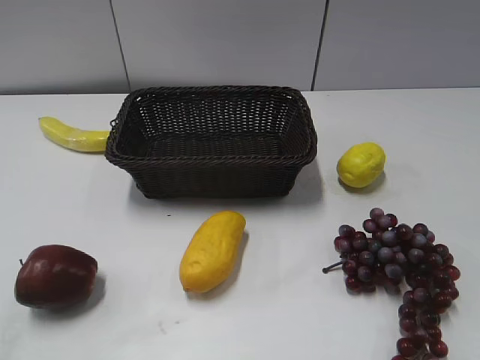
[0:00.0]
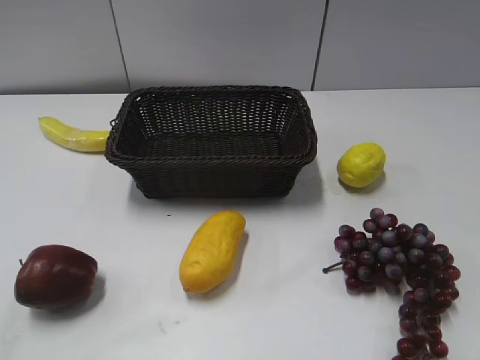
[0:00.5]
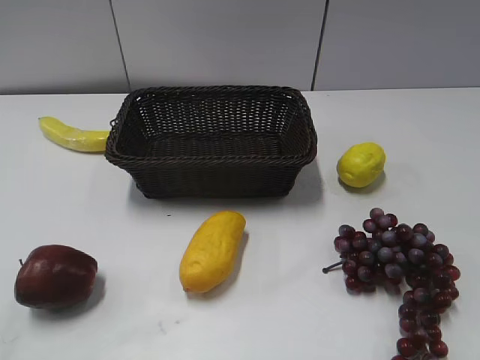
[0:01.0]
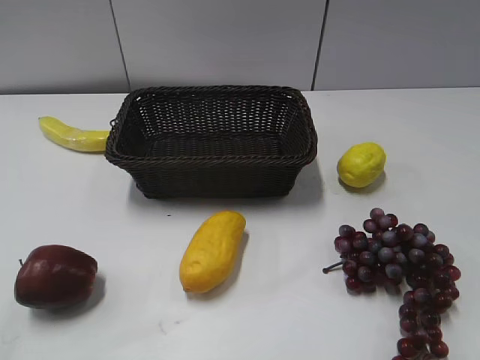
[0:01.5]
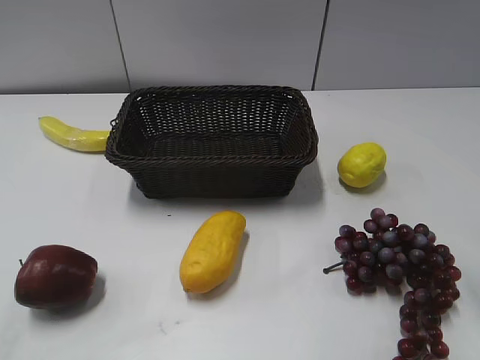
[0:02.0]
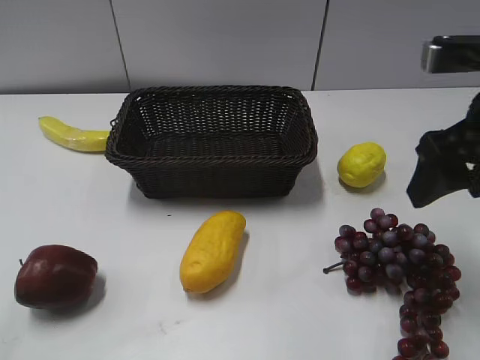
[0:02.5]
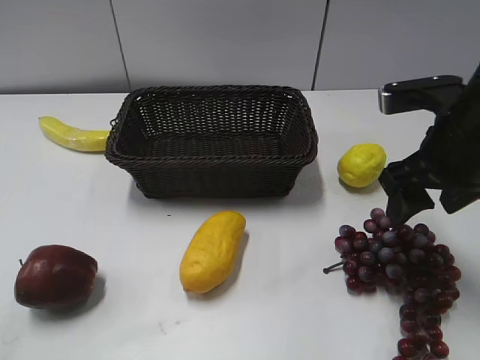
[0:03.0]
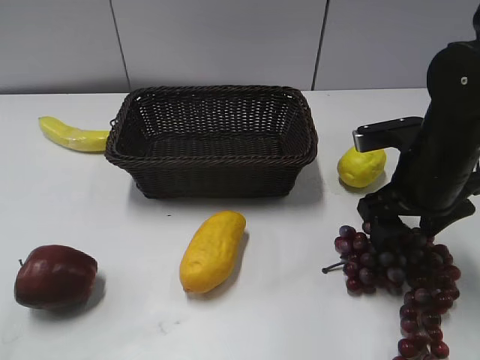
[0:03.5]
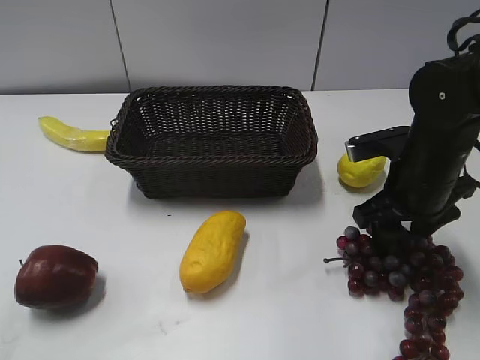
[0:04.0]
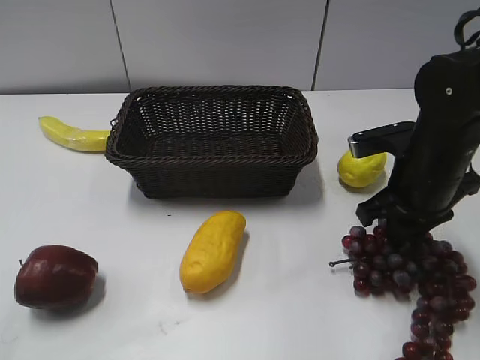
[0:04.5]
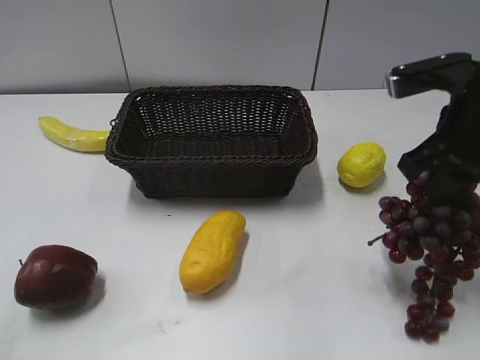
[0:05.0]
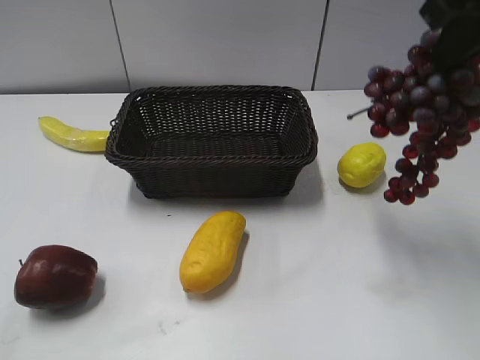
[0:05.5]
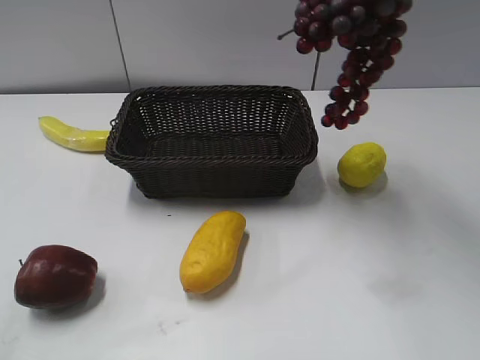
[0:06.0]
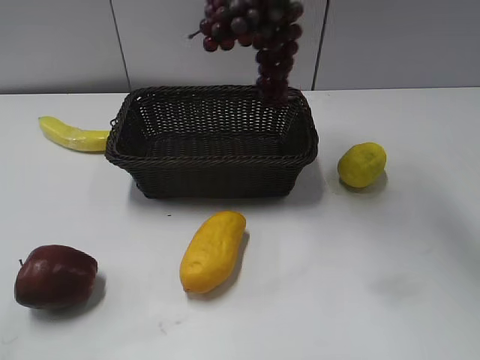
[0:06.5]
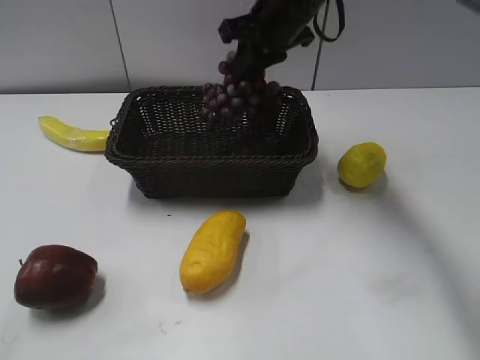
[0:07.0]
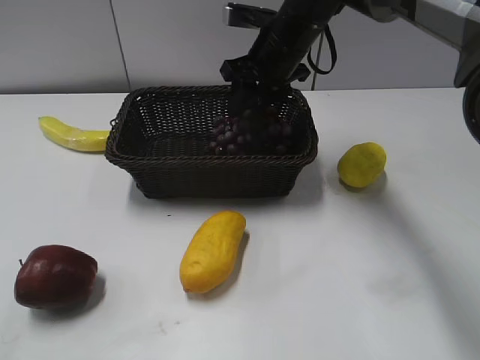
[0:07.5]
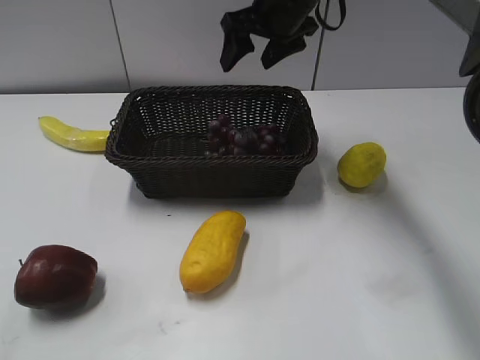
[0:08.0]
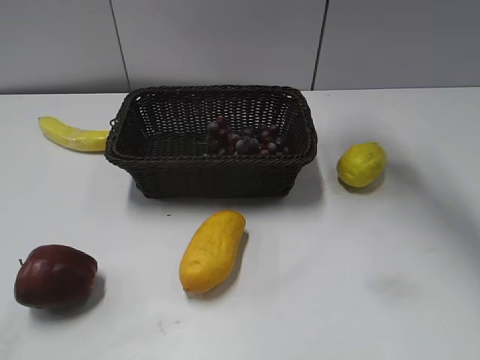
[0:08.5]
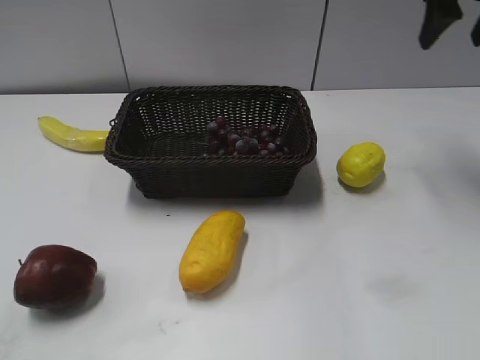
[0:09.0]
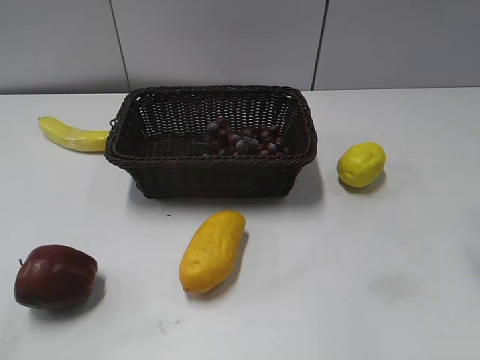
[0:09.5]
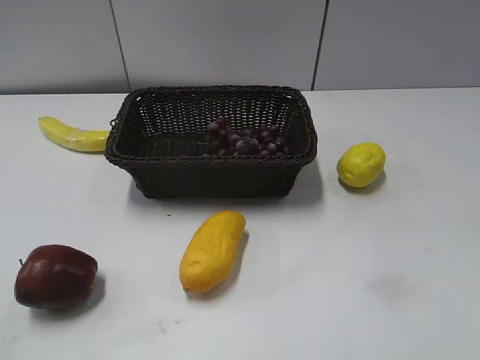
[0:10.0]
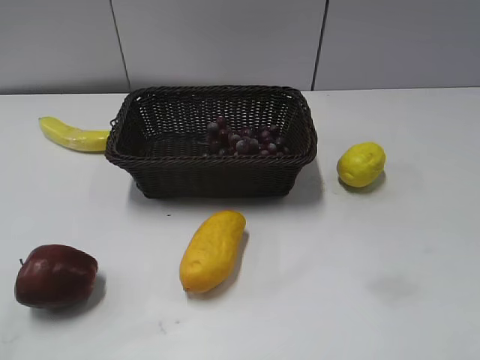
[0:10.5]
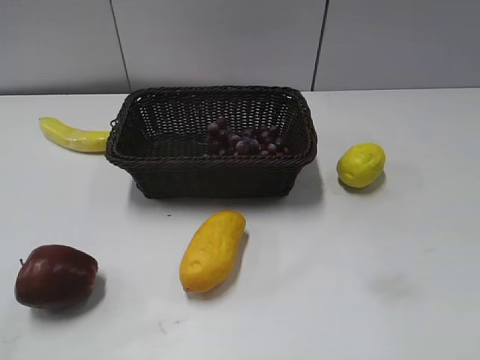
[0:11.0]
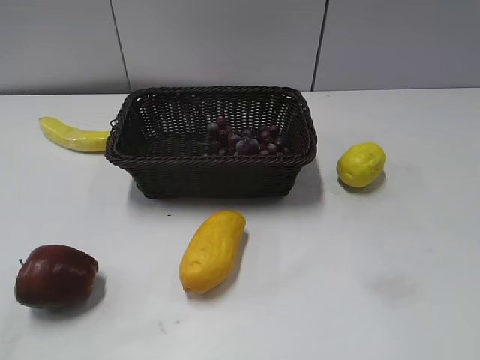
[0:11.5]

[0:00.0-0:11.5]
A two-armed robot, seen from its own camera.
Step, 0:02.5 to 0:04.5: Grasp the grape with right gripper.
Step, 0:05.0 to 0:07.5: Place the grape in the basket with right gripper.
0:02.0 to 0:04.0: The right gripper heads downward, to the left and forward, covering about 20 cm.
0:04.0 to 0:06.0: The right gripper goes some 25 cm upward, and closes up.
0:06.0 to 0:07.5: The right gripper travels downward, forward and to the left by some 25 cm, and opens up.
0:07.5 to 0:09.5: The right gripper shifts approximately 30 cm to the right and backward.

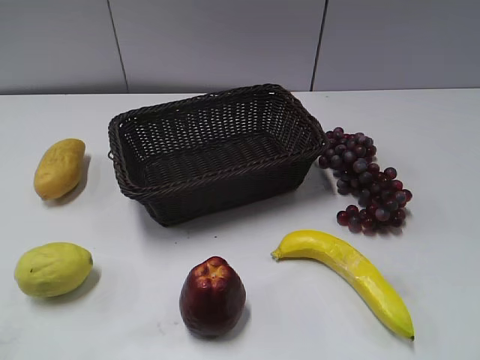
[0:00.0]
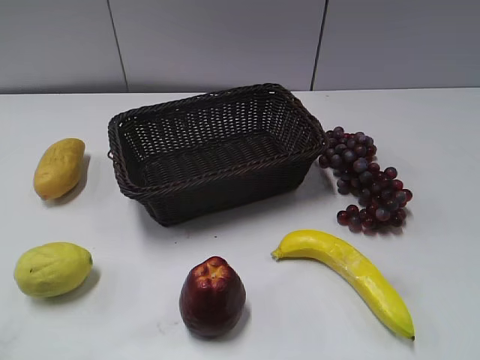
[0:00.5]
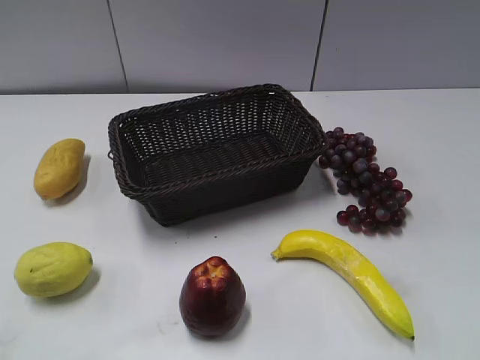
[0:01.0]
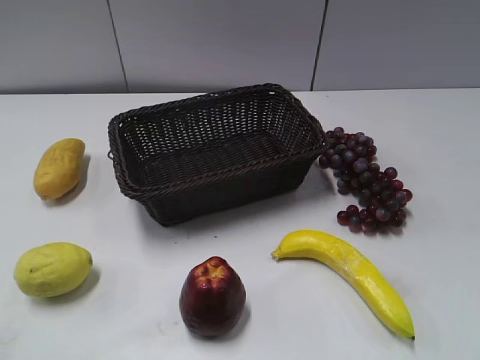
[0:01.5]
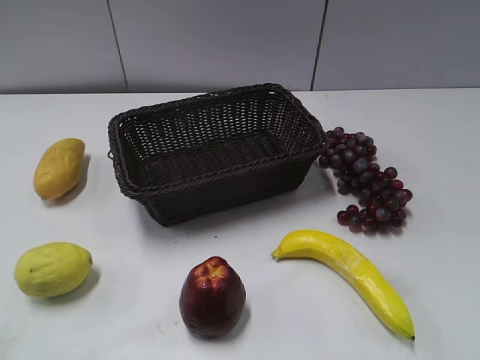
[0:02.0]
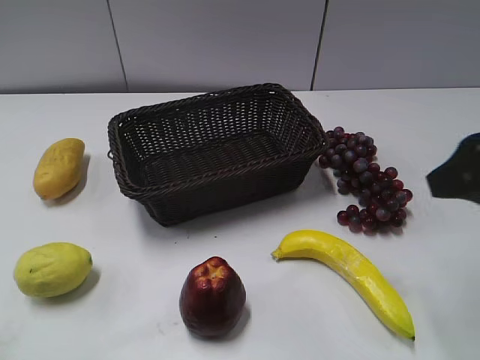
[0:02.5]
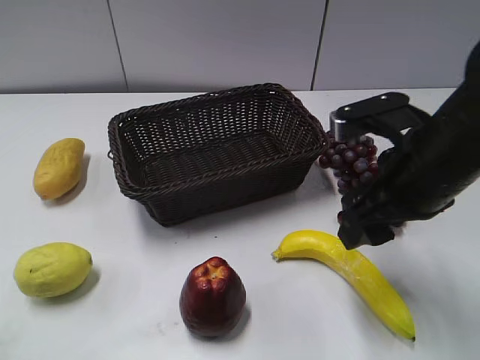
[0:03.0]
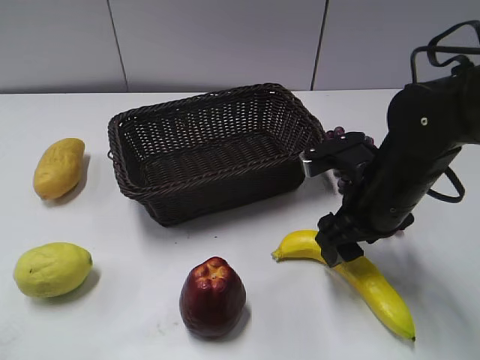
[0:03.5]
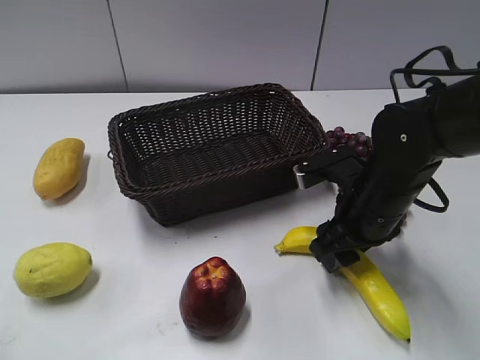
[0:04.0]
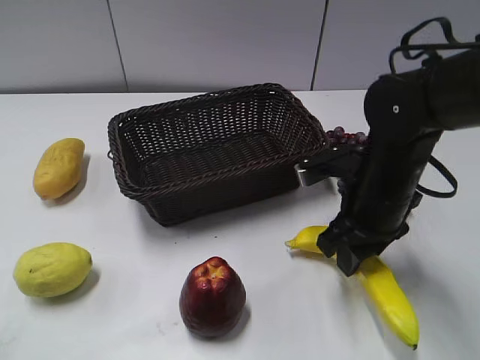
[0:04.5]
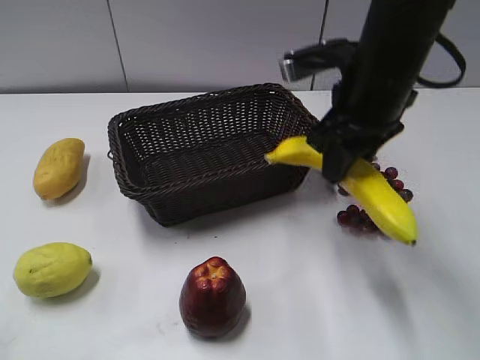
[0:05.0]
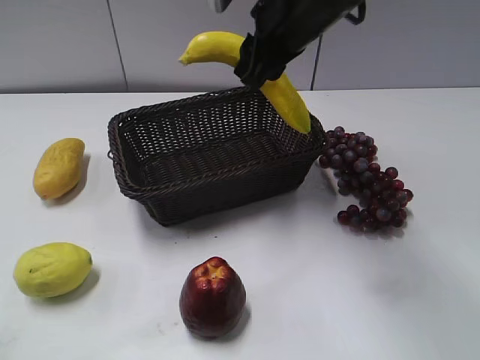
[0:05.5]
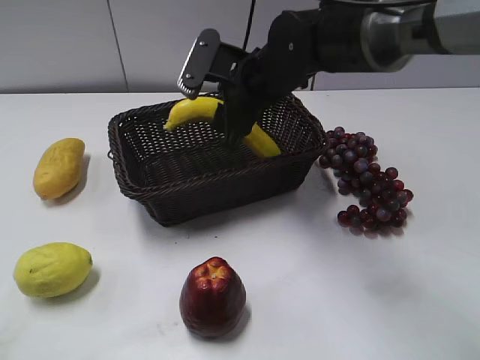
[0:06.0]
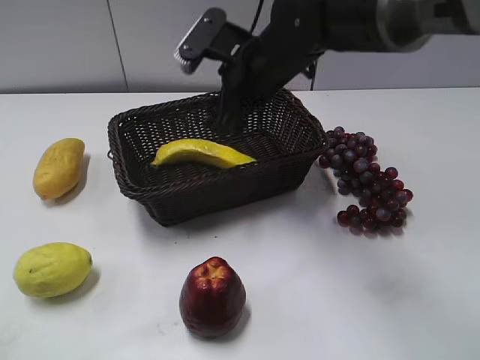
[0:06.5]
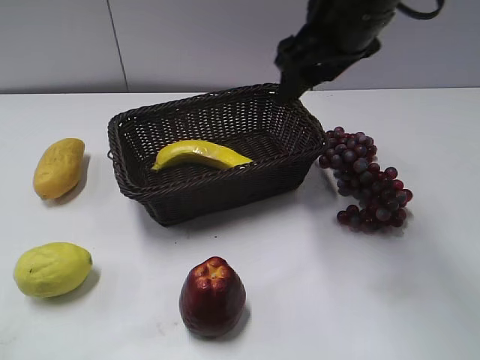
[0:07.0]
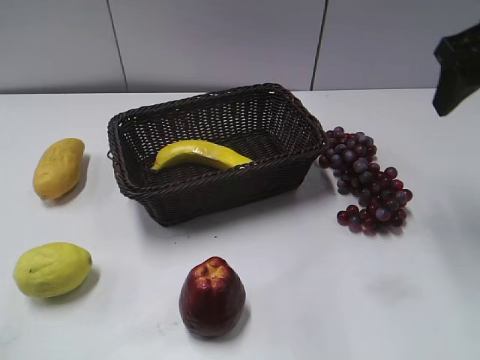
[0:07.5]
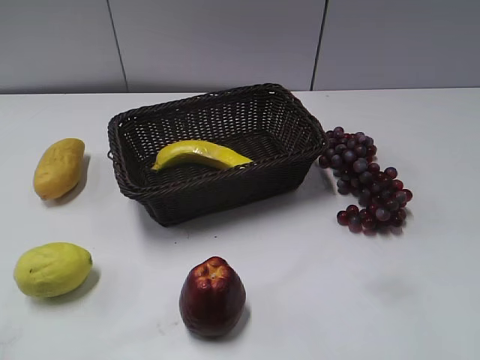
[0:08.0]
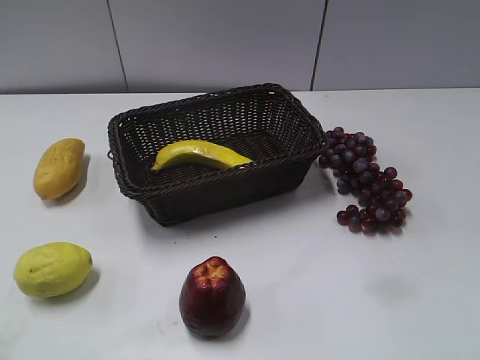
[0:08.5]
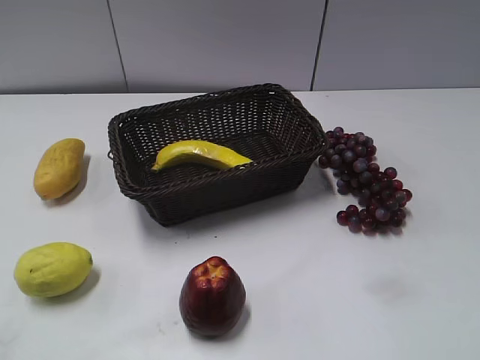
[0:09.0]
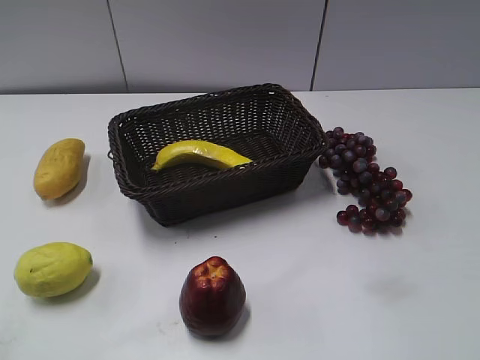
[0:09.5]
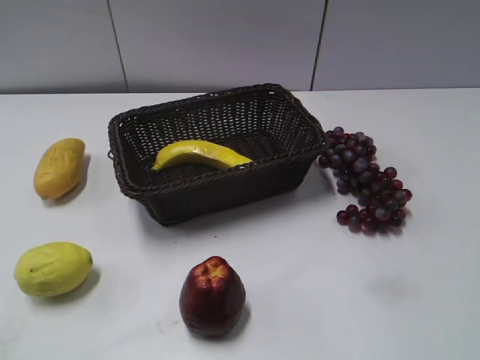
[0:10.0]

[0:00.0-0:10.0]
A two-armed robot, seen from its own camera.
Step, 0:02.5 to 0:04.0: Grasp the banana with right gripper.
Step, 0:05.0 to 0:06.5: Place the banana in the basket with right gripper.
0:02.0 to 0:04.0: The right gripper moves downward, forward and to the left, approximately 30 cm, and closes.
0:04.0 to 0:06.0: The right gripper shifts some 20 cm to the left, forward and upward.
0:06.0 to 0:08.0: The right gripper moves to the right, backward and upward, approximately 35 cm, and opens.

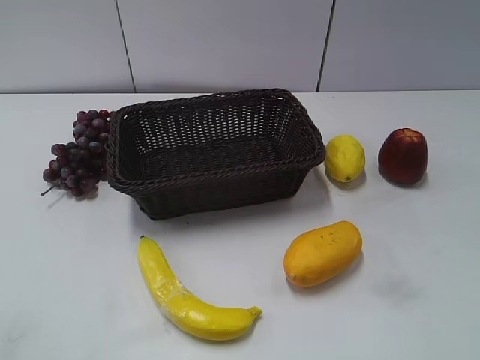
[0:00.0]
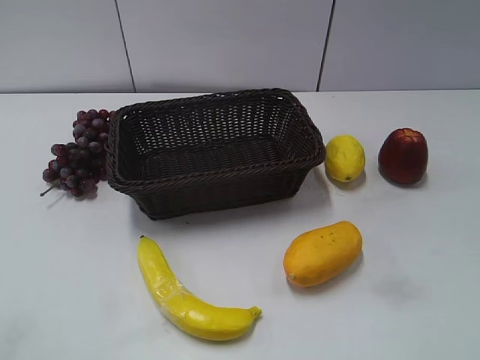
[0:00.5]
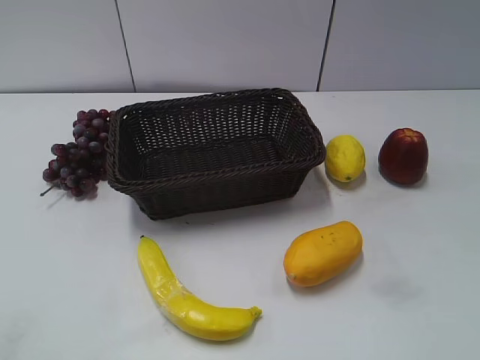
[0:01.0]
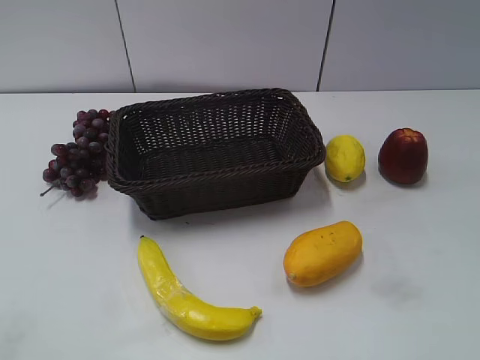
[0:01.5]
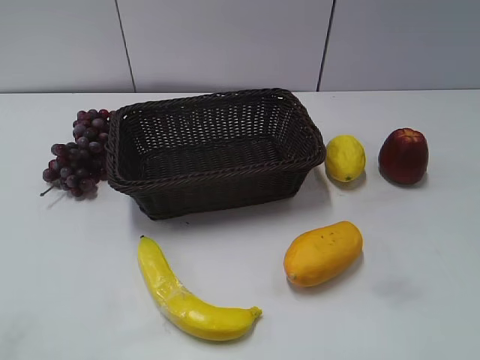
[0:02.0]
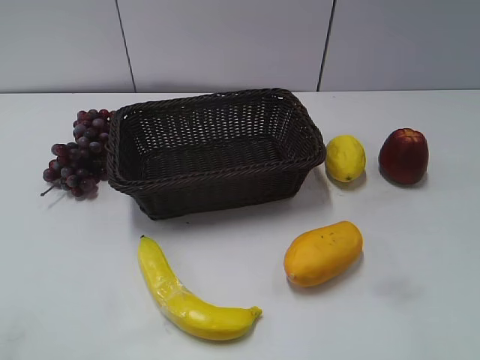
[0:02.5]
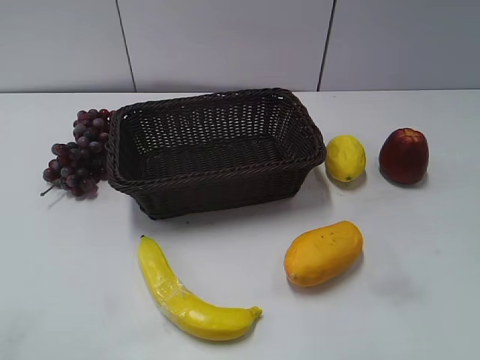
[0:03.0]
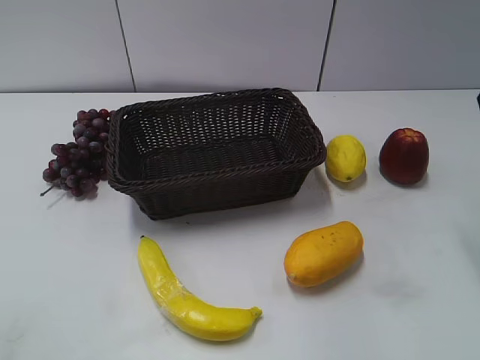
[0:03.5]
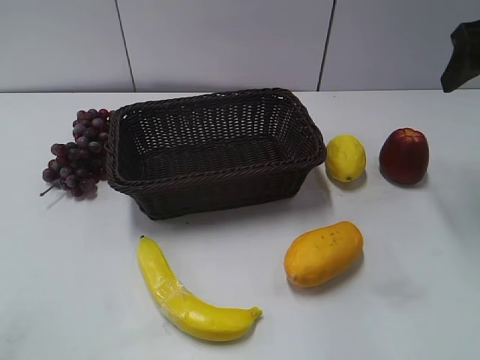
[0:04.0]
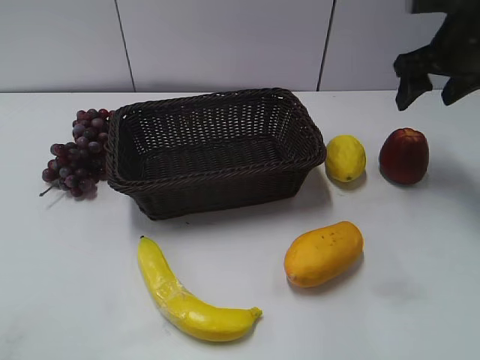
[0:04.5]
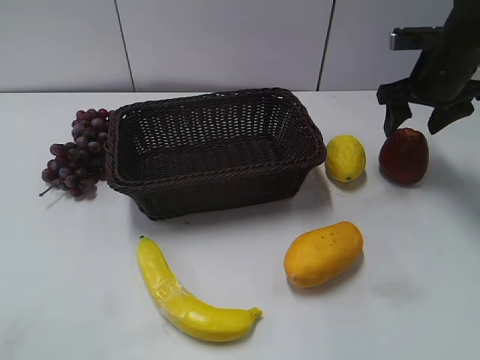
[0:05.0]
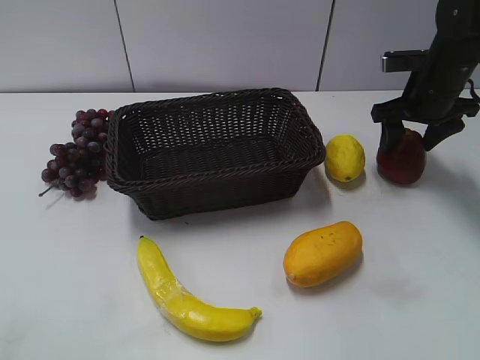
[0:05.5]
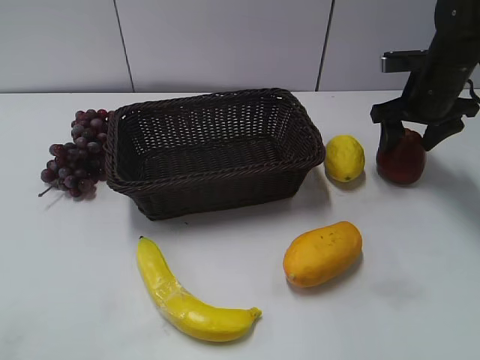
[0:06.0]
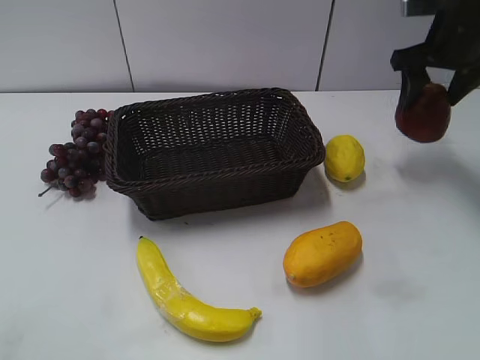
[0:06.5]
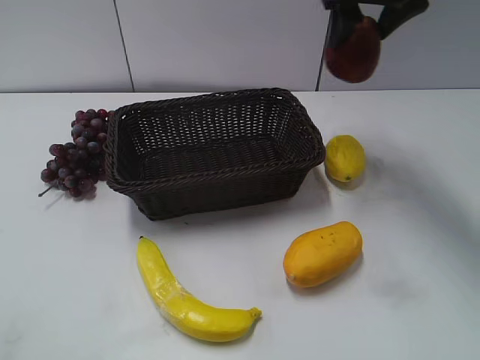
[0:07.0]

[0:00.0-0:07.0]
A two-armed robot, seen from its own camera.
Step, 0:04.0 to 0:05.5: Grasp the apple with right gripper.
0:03.5 to 0:05.0: The right gripper goes some 20 cm forward and downward.
0:05.0 to 0:07.0: The right gripper travels upward and to the left by roughly 15 cm.
